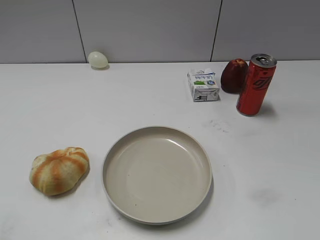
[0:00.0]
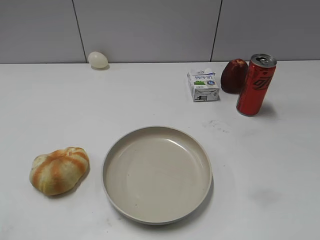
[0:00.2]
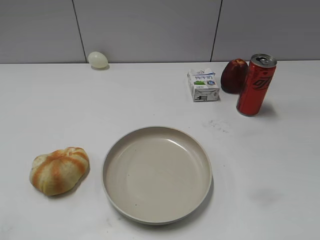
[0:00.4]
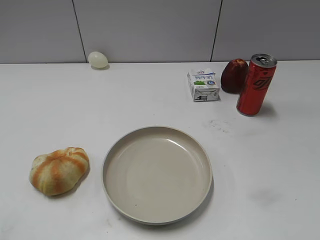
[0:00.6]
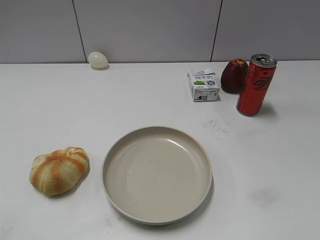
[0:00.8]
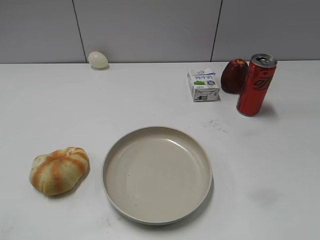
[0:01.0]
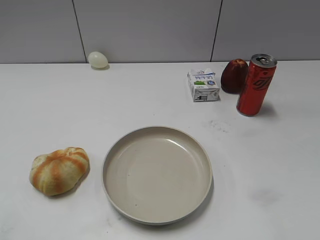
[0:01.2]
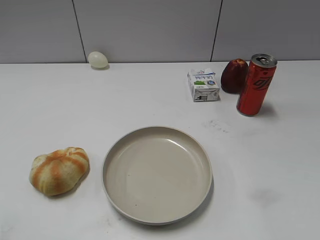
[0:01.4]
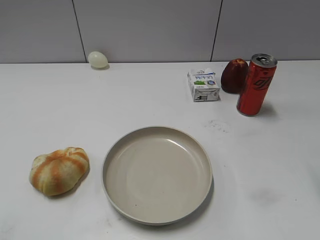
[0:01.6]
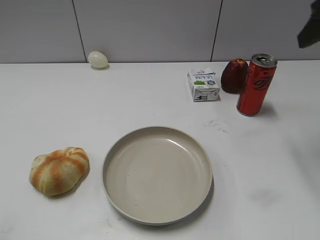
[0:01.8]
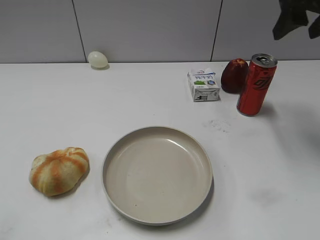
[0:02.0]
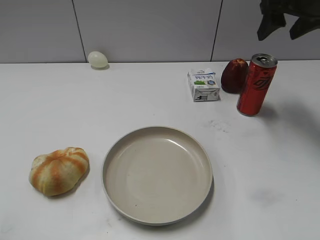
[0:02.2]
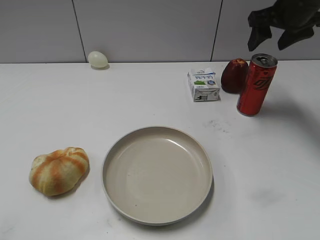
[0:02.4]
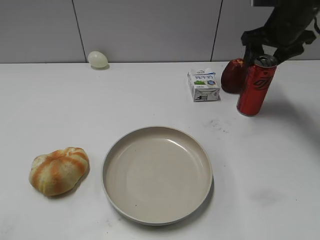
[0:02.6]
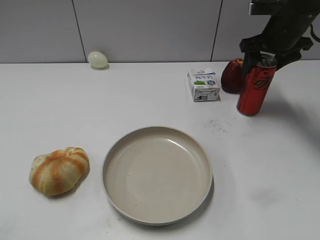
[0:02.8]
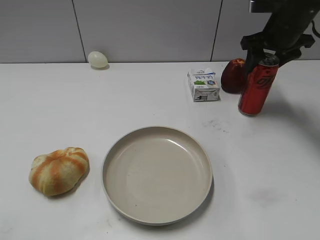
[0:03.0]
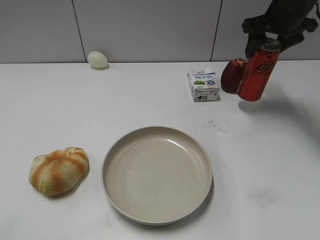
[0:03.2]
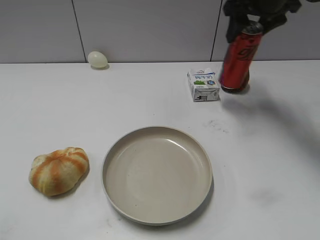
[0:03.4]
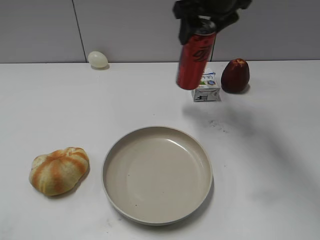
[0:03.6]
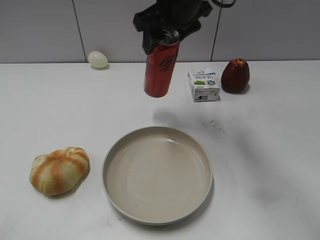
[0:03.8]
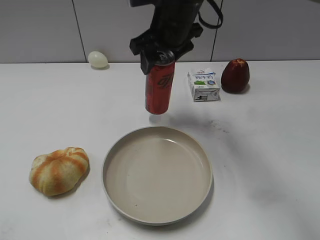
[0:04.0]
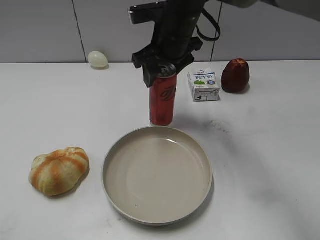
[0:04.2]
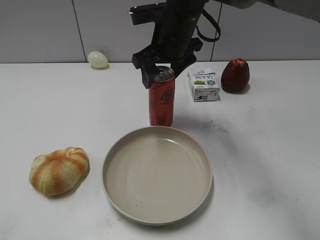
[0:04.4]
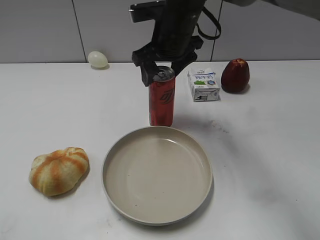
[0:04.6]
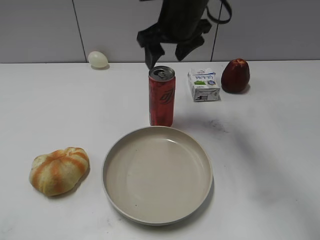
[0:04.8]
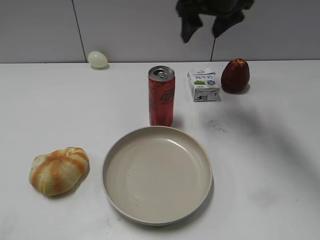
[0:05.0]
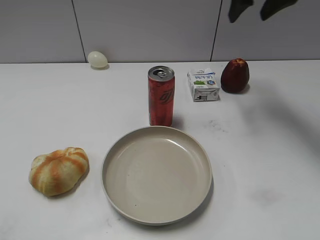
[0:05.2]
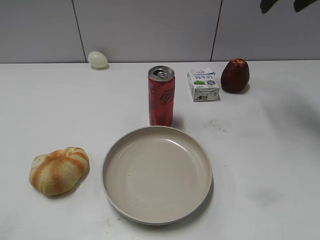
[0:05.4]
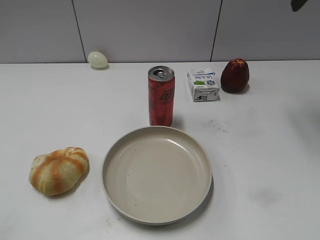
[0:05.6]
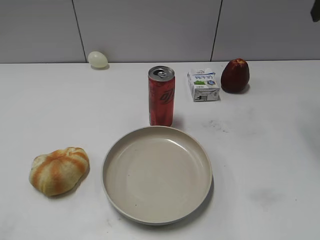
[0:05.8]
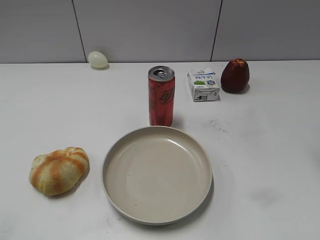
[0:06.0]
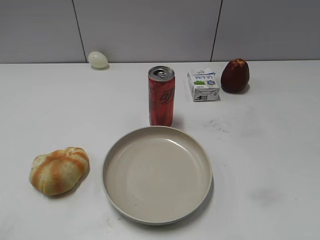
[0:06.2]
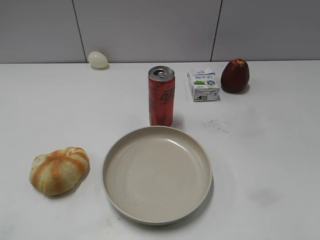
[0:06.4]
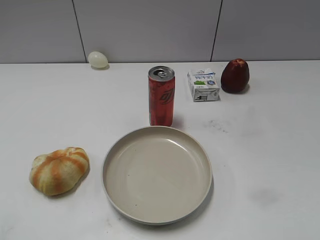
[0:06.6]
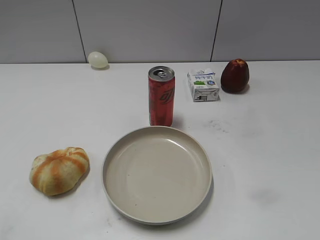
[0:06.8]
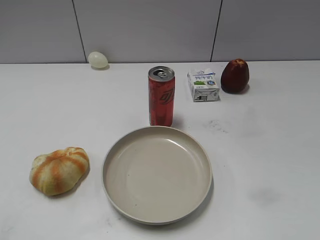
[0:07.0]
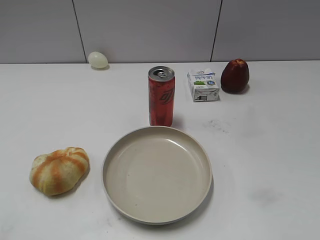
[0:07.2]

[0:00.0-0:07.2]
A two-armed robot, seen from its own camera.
Step, 0:01.0 to 0:02.8: Grasp the cola with right gripper.
Step, 0:03.2 to 0:04.8: Place the cola on the table with right gripper.
0:01.4 to 0:02.8: The right gripper heads forward, covering some 30 cm.
0:02.8 to 0:04.4: The right gripper is displaced to the left by approximately 20 cm, and closes, then opens again.
0:04.4 to 0:05.8: The right gripper shifts some 30 cm to the right and upward.
